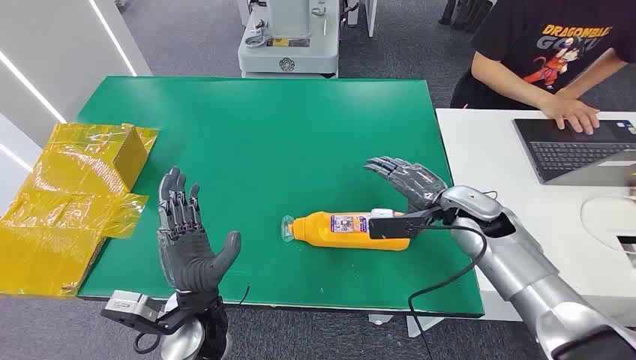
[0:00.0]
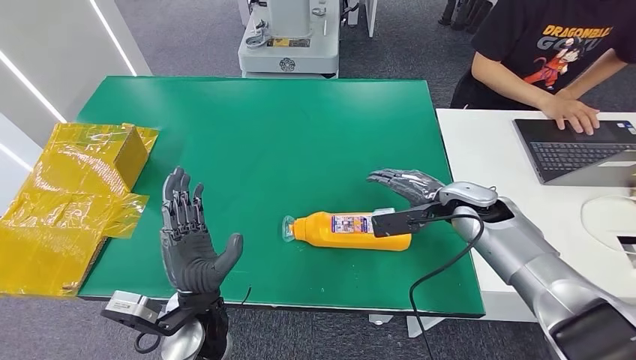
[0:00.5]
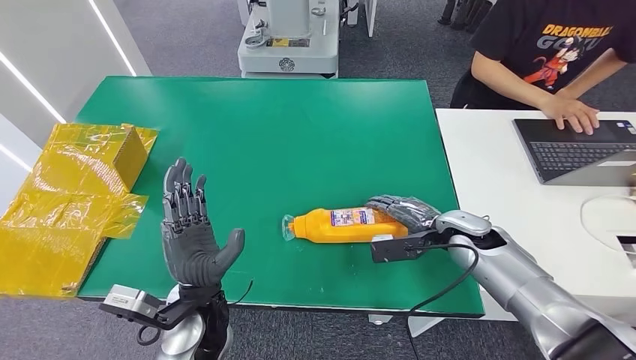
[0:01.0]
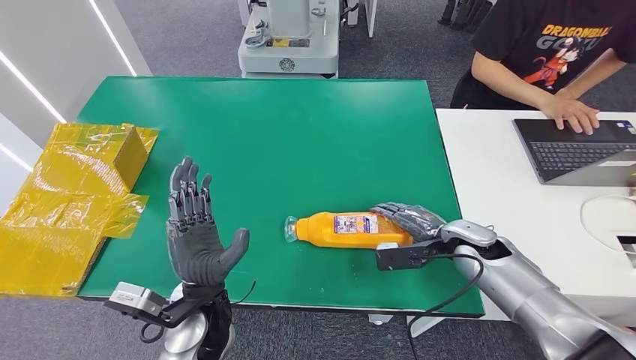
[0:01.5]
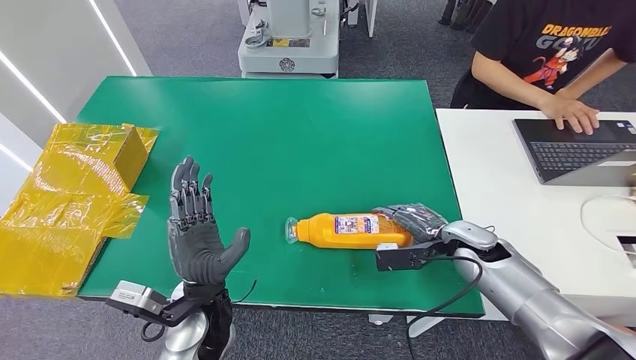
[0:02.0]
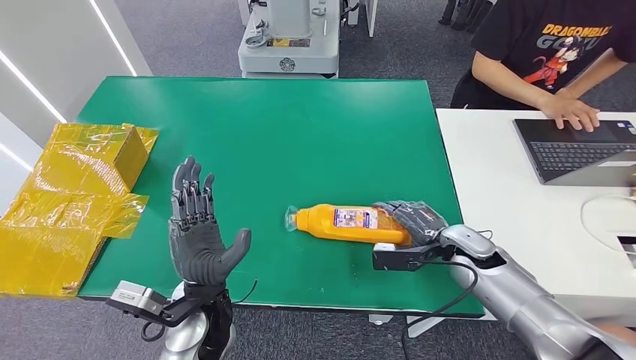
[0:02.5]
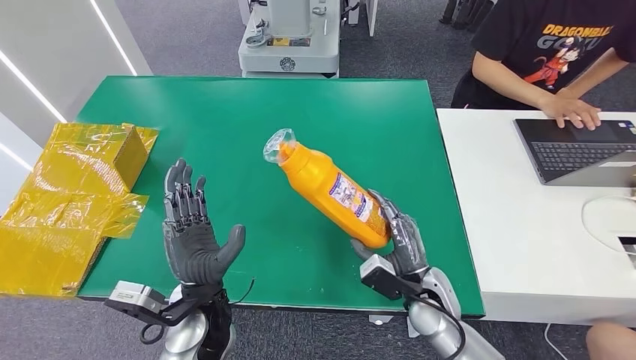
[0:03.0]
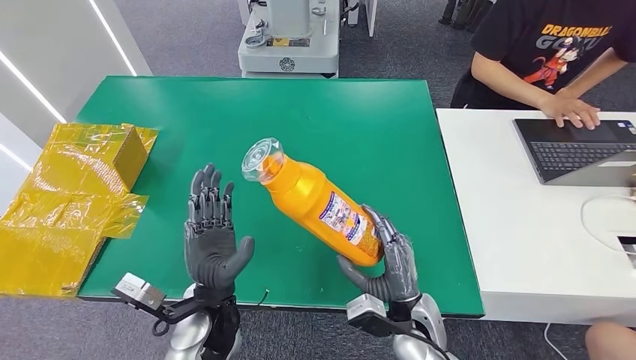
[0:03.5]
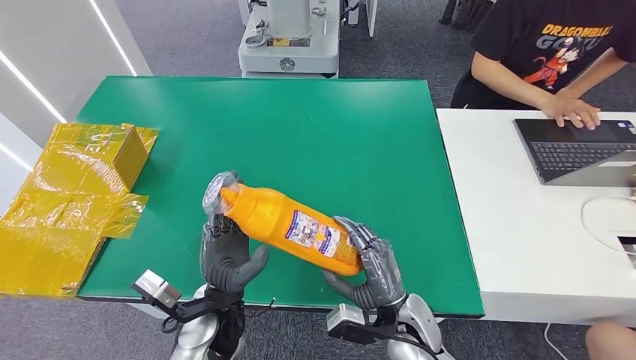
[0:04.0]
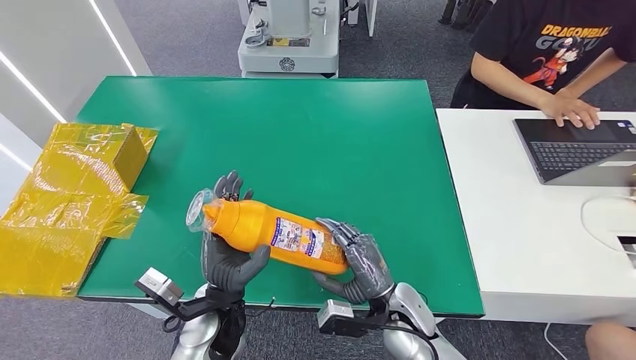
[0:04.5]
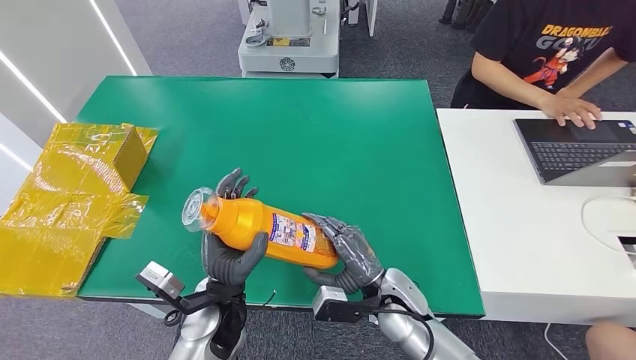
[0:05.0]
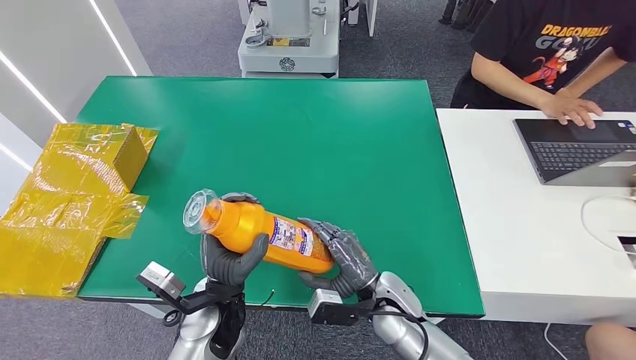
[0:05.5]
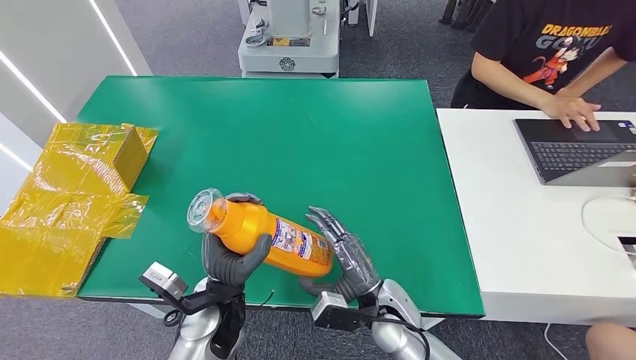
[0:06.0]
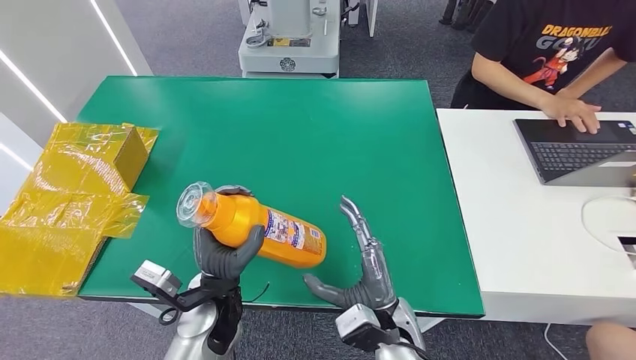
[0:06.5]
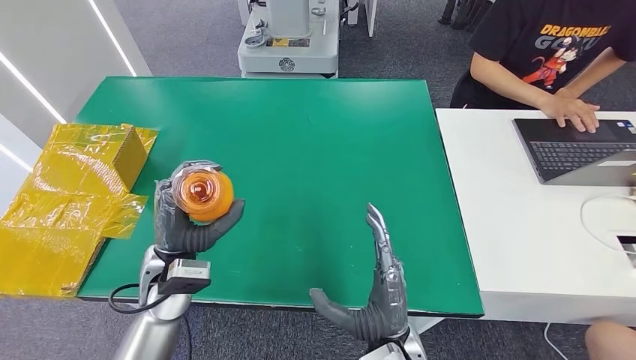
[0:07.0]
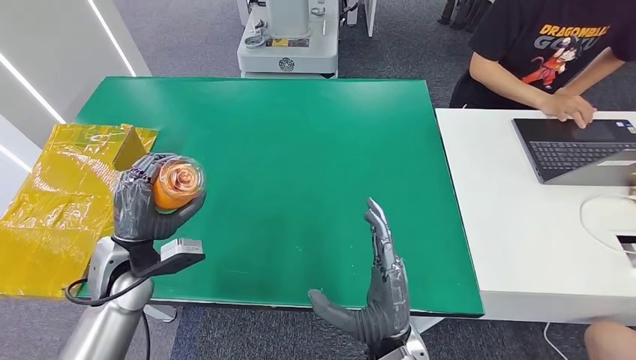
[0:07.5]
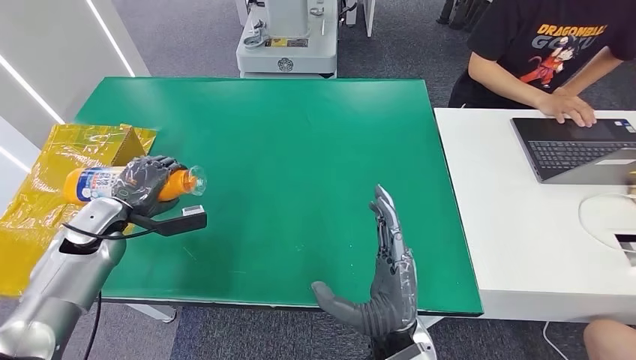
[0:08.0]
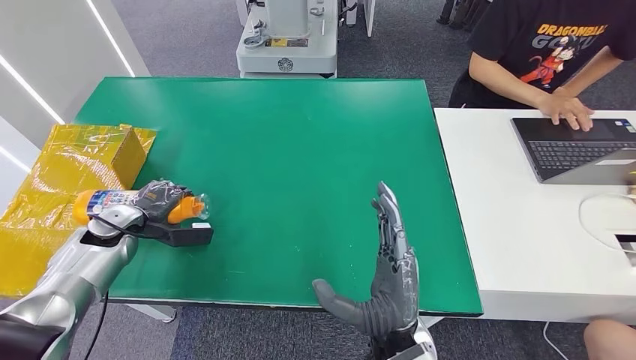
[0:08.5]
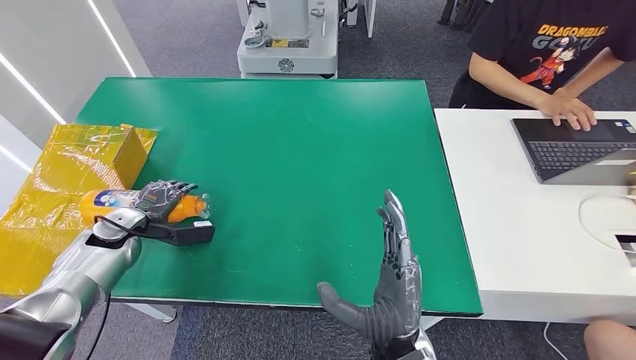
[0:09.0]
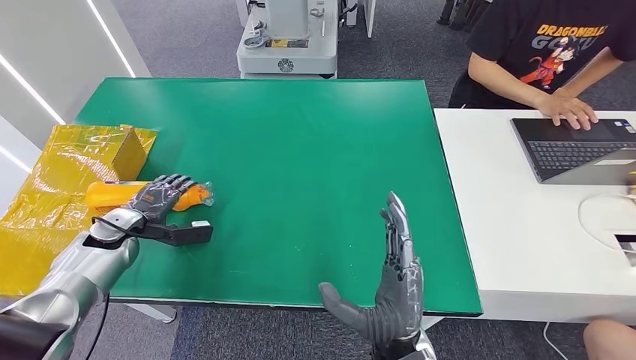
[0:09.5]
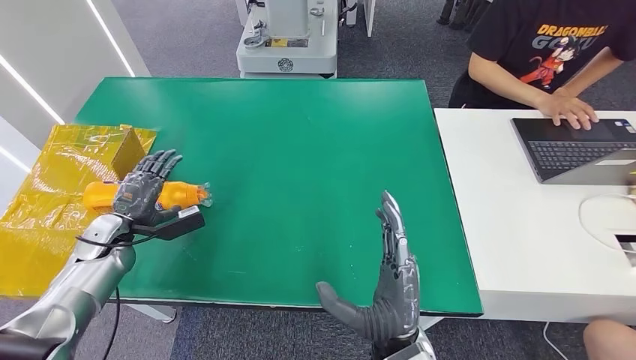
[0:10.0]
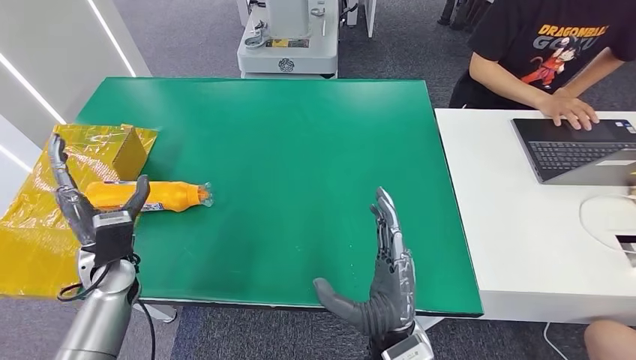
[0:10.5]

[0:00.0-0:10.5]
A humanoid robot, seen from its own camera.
Step, 0:00.0 to 0:03.5: Pick up the bottle from the table.
Step, 0:05.0 to 0:10.5: Turn the bottle to the front side.
0:02.0 to 0:04.0: The right hand shifts about 20 cm to the left and backward.
0:08.5 to 0:10.5: The left hand is displaced backward and to the right by roughly 10 cm.

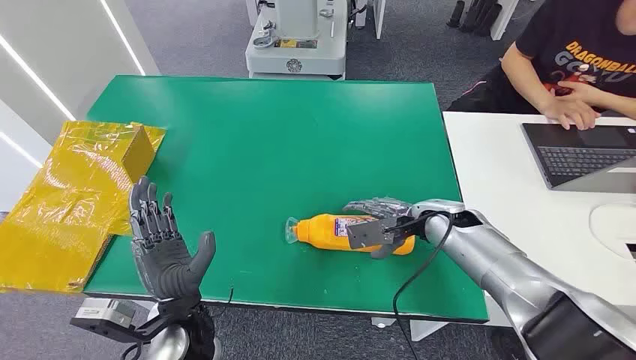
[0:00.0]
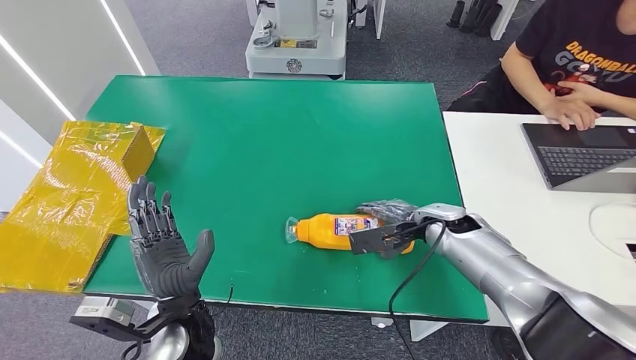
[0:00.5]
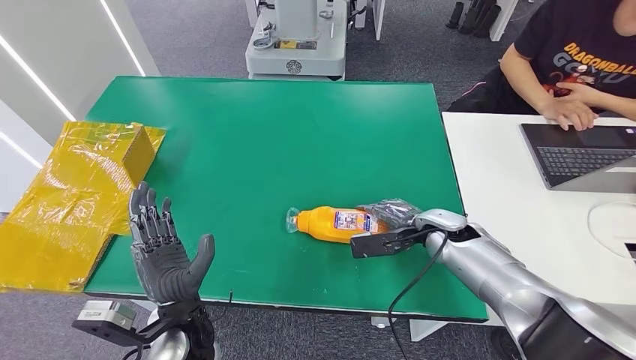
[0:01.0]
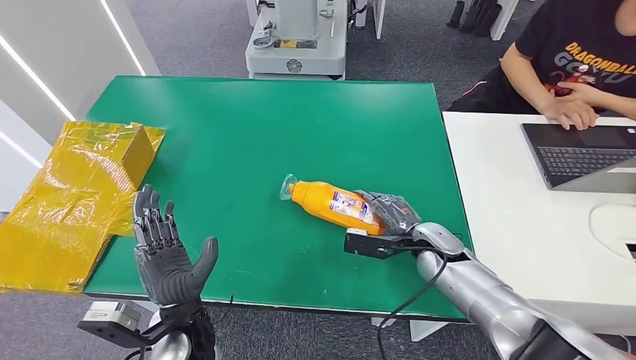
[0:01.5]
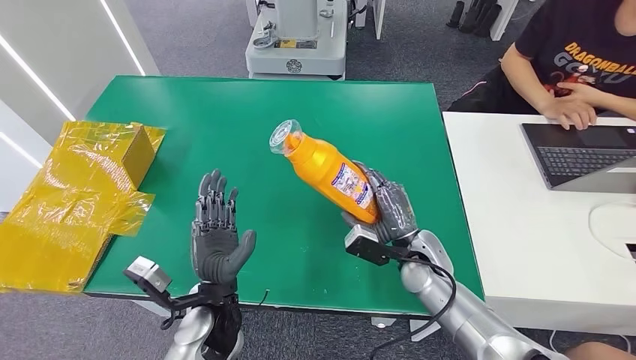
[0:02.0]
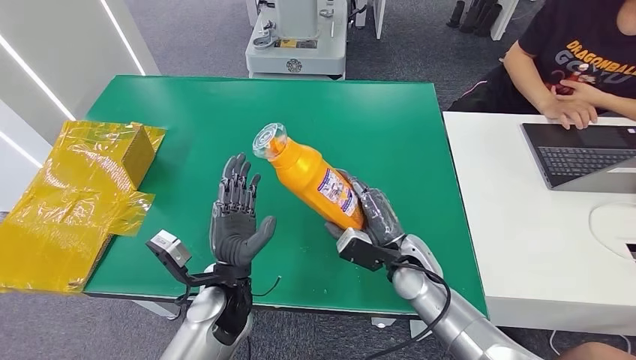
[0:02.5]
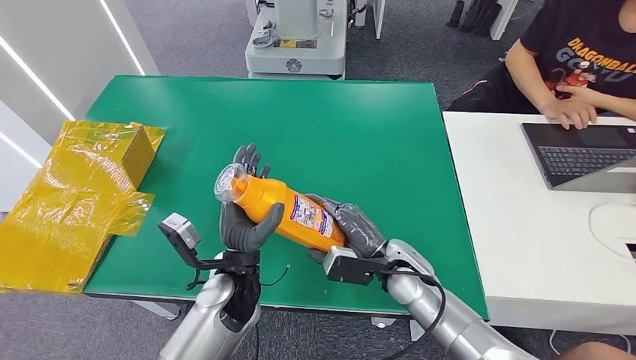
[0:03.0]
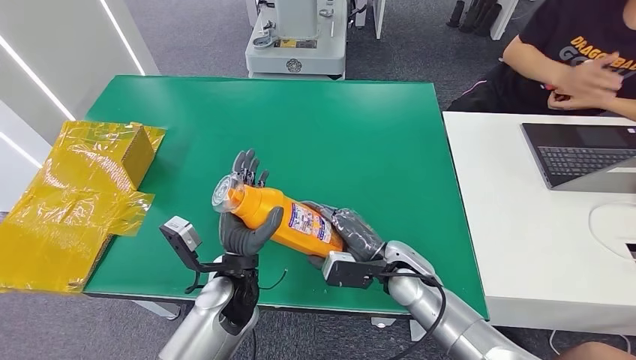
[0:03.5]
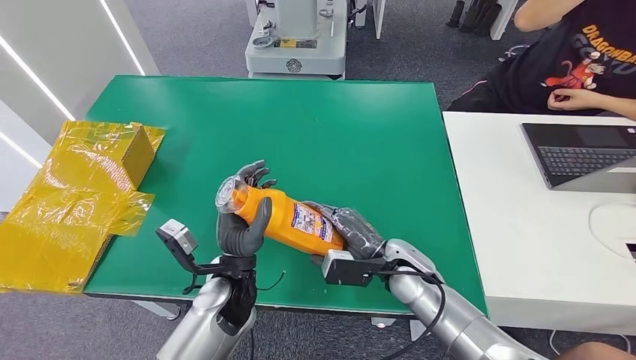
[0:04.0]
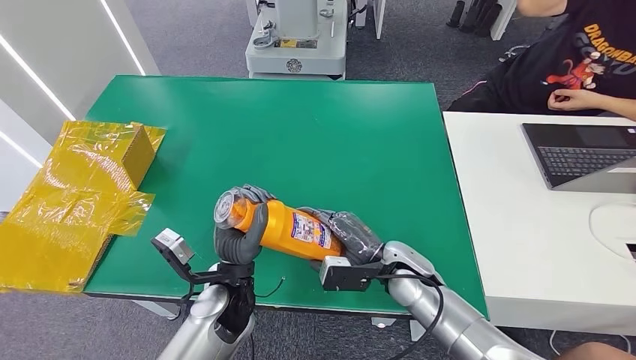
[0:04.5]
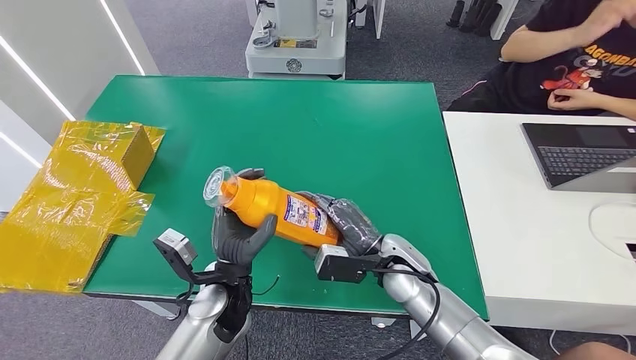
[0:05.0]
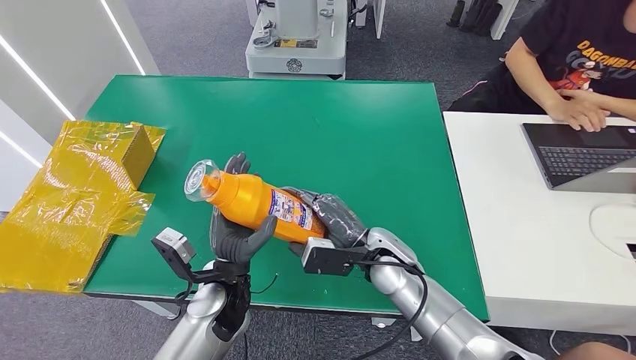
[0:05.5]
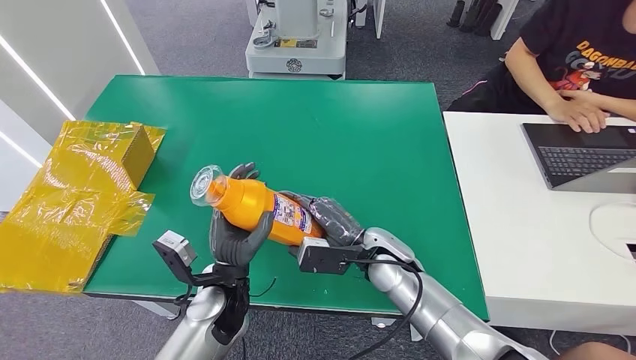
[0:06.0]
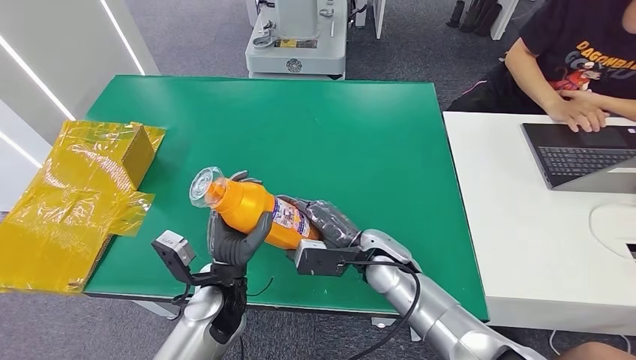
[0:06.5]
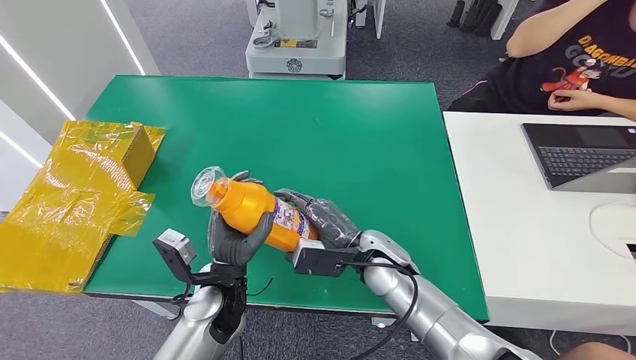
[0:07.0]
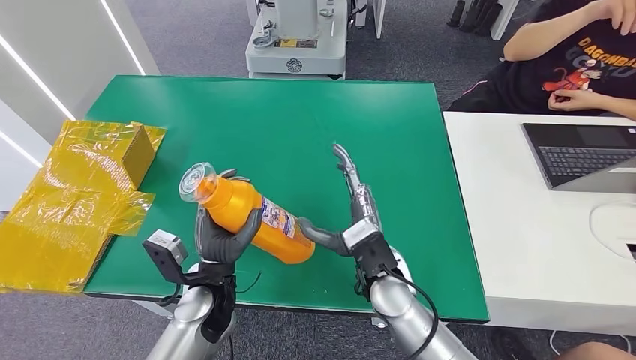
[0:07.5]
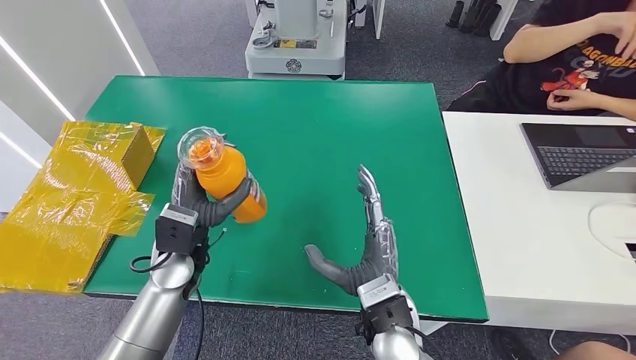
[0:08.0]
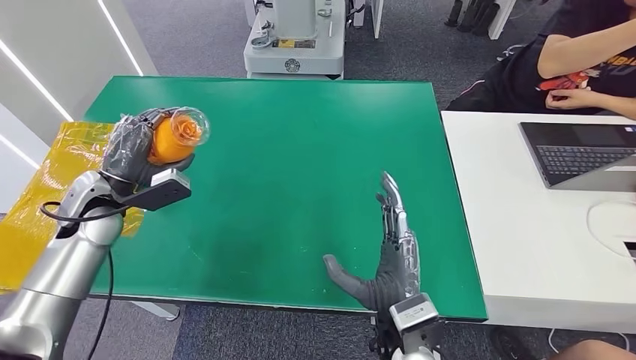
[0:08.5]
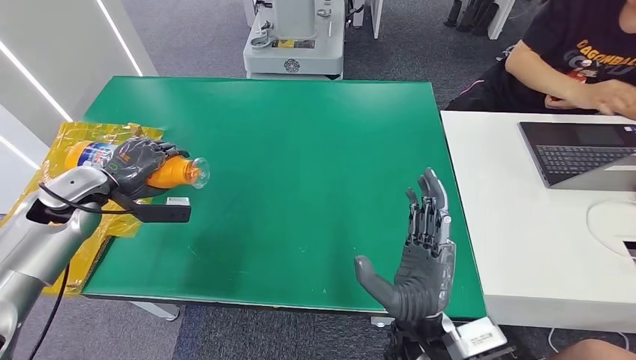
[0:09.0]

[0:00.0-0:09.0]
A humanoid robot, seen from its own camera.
Step, 0:00.0 to 0:04.0: Pick up the bottle from the table.
0:04.5 to 0:07.0: The right hand moves approximately 5 cm.

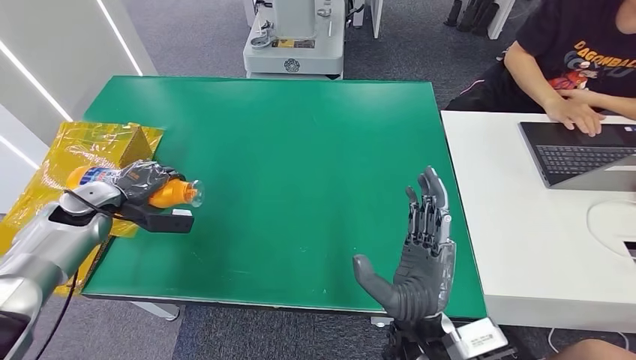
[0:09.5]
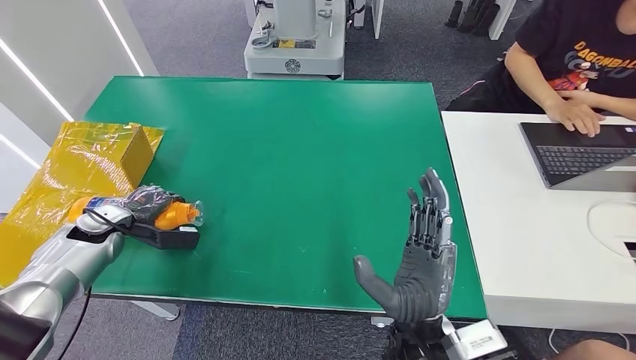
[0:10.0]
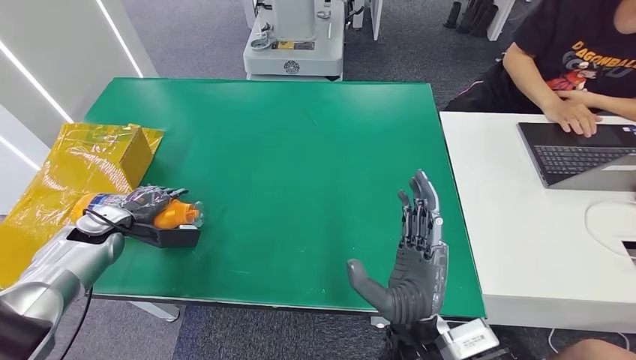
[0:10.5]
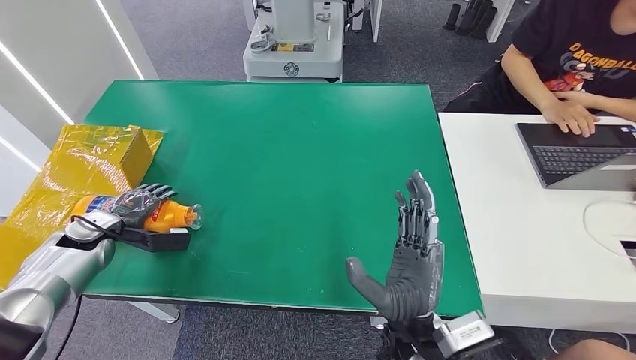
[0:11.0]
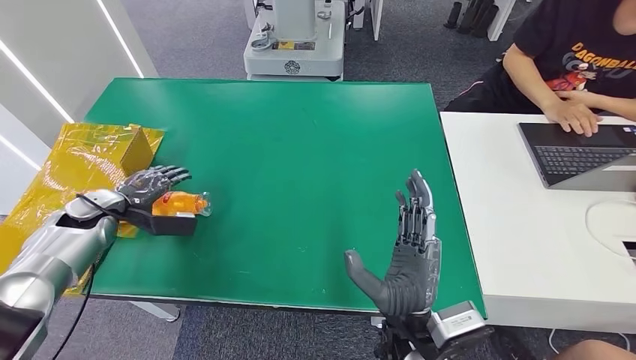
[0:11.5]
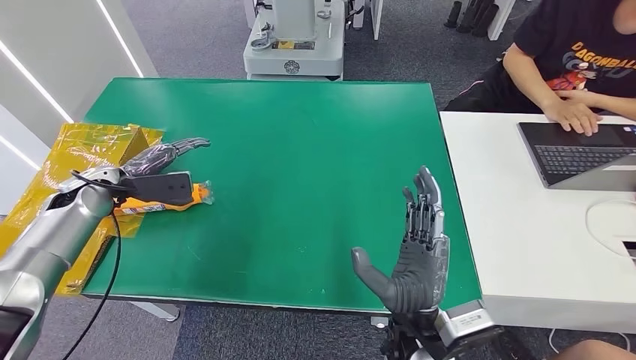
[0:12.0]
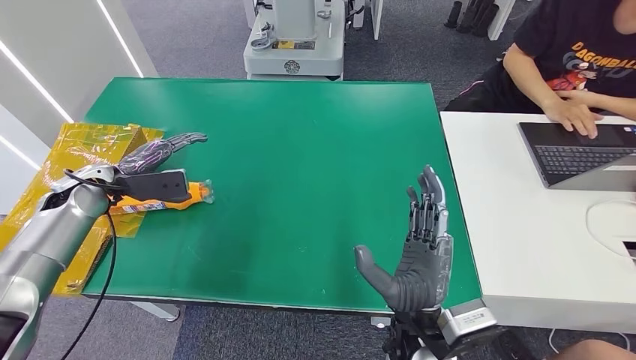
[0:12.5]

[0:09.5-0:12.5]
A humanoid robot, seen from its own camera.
Step, 0:09.5 to 0:12.0: Turn the bottle to the front side.
0:09.5 to 0:11.0: The left hand moves downward, about 5 cm.
0:11.0 to 0:12.5: The left hand shifts approximately 10 cm upward.
